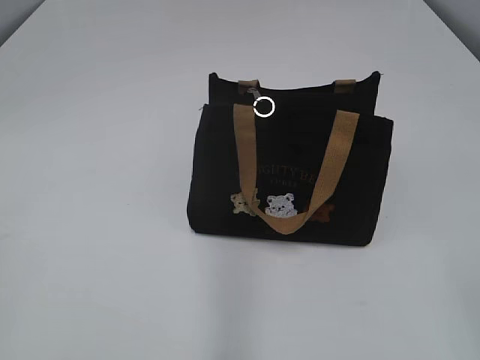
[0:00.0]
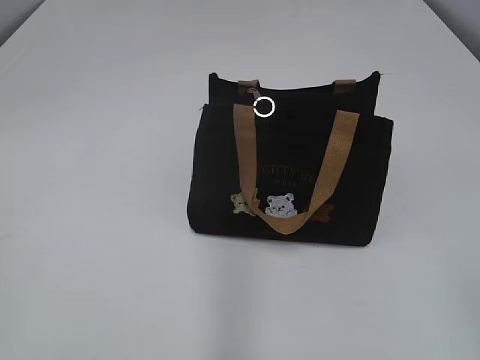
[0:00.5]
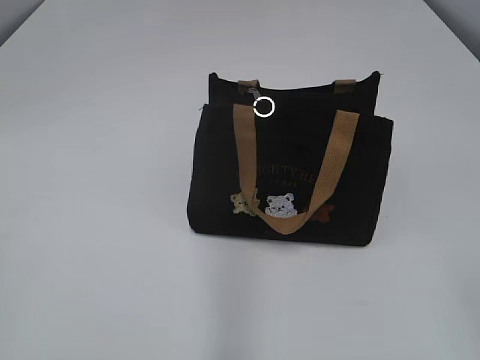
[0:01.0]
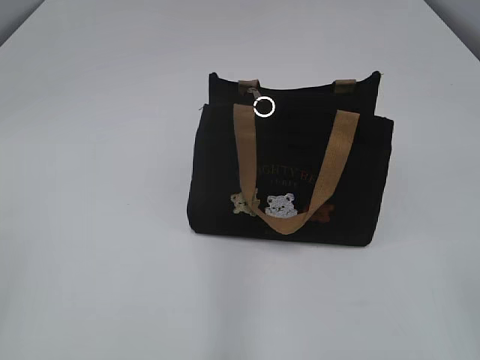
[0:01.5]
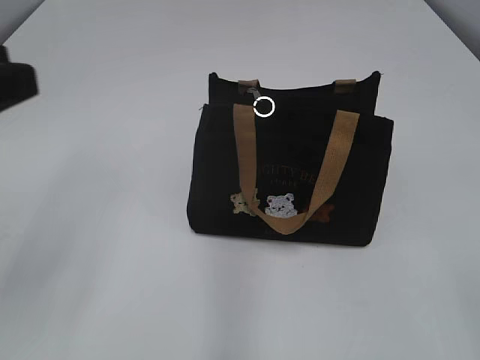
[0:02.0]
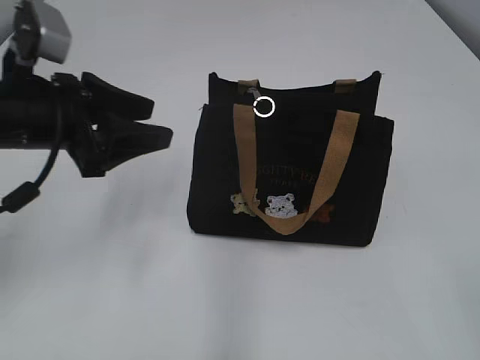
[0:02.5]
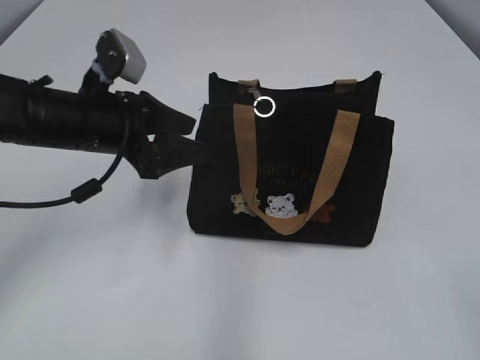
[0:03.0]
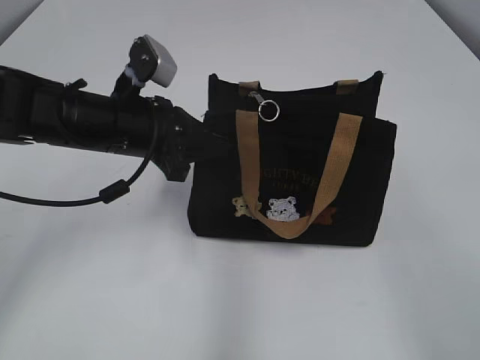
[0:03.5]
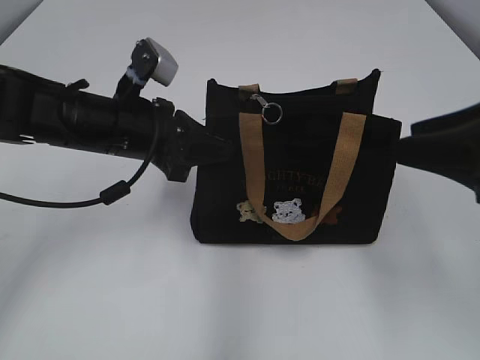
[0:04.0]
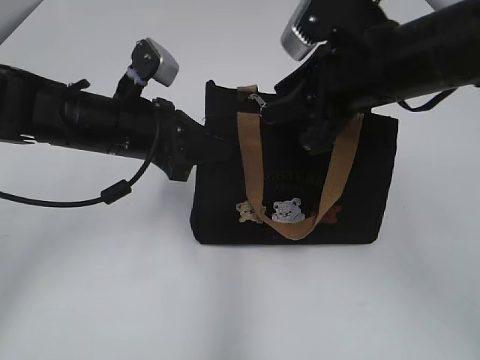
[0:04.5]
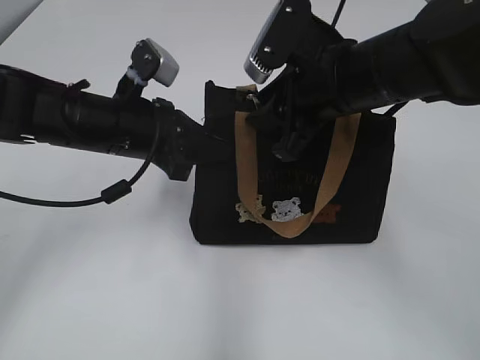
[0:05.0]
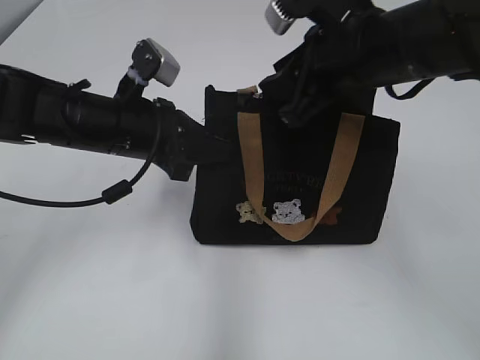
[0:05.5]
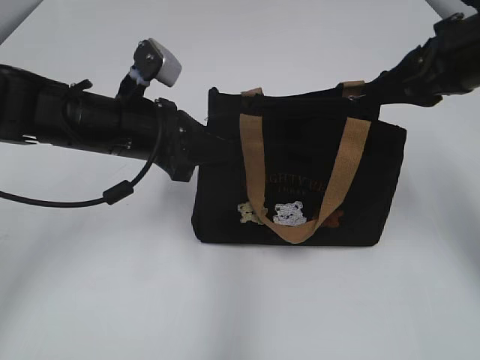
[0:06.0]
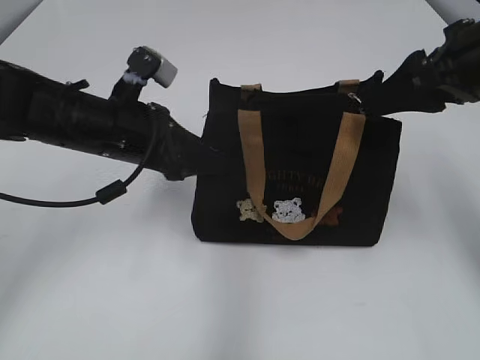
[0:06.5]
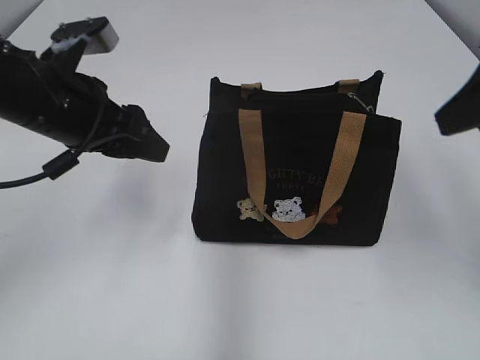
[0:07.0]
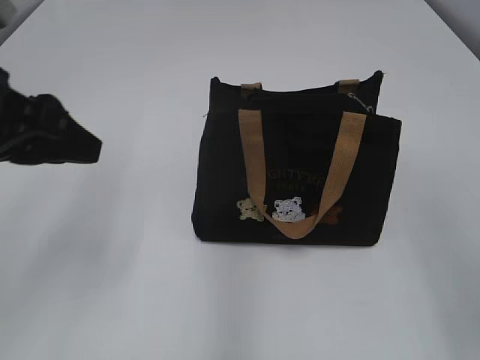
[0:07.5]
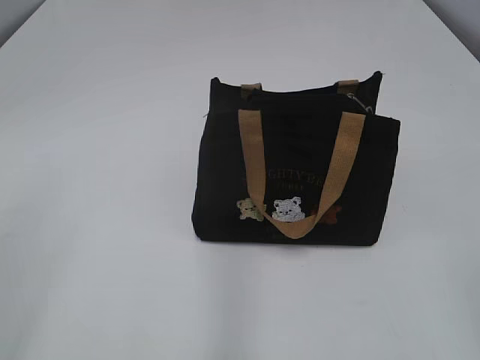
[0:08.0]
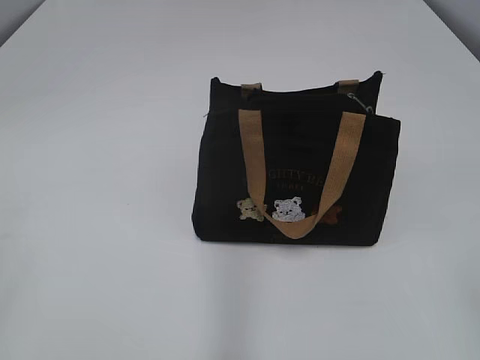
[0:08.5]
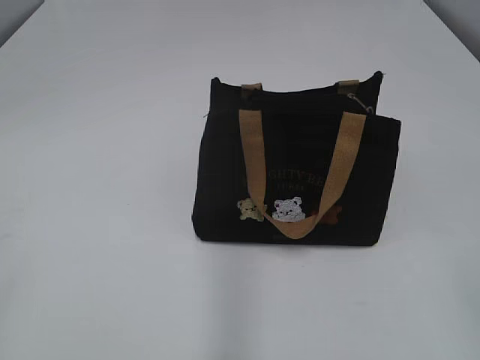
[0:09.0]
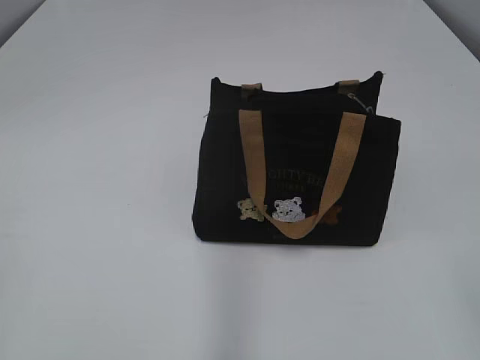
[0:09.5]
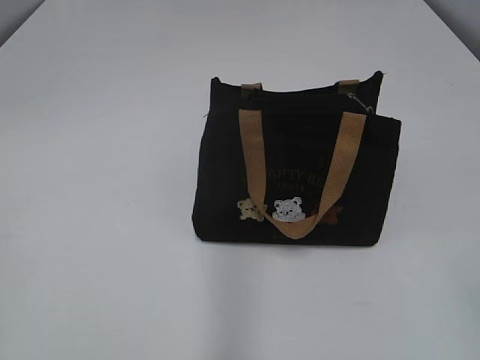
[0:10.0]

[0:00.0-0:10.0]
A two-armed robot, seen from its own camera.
Step, 0:00.0 to 0:06.5: Pull open the zipper with your right hand.
0:02.0 to 0:04.0: The right gripper goes about 20 cm forward; the left gripper moves forward, to the right and downward, roughly 25 cm, and closes up.
0:04.0 to 0:06.0: The right gripper goes roughly 10 cm forward, and reaches some 15 cm to the left, then returns.
0:06.0 to 0:08.0: The right gripper moves backward, some 30 cm, and opens and closes again, while the left gripper goes approximately 30 cm backward, to the left and upward, and opens.

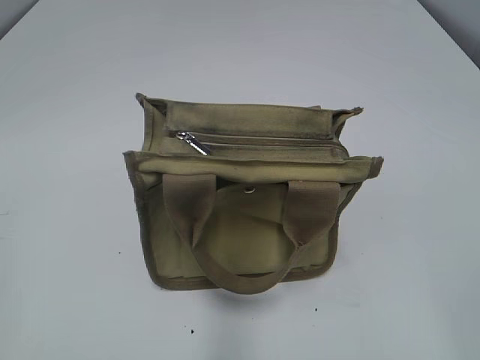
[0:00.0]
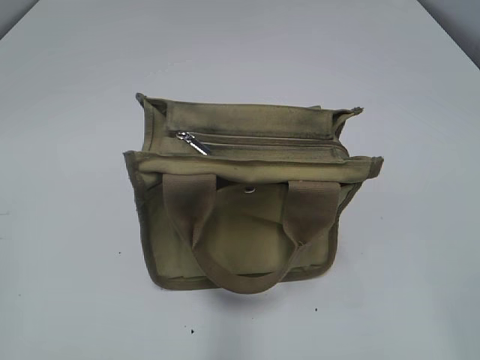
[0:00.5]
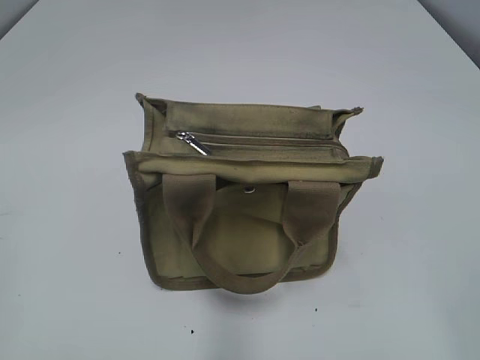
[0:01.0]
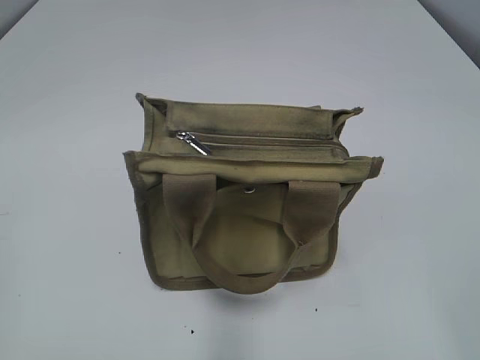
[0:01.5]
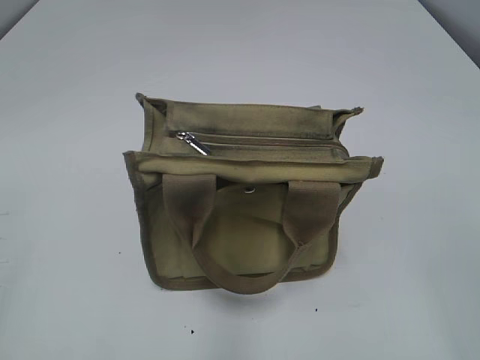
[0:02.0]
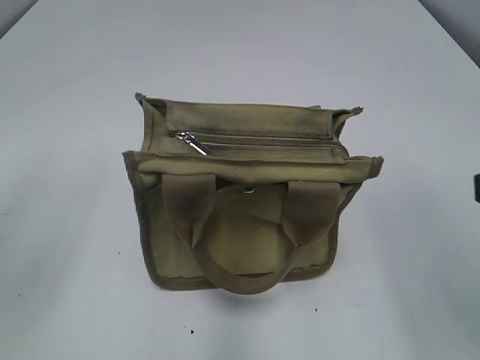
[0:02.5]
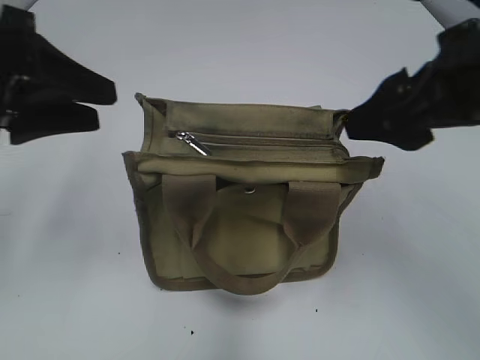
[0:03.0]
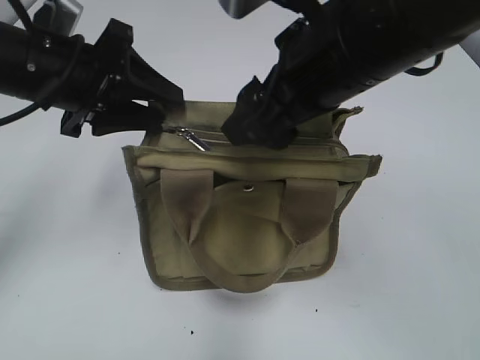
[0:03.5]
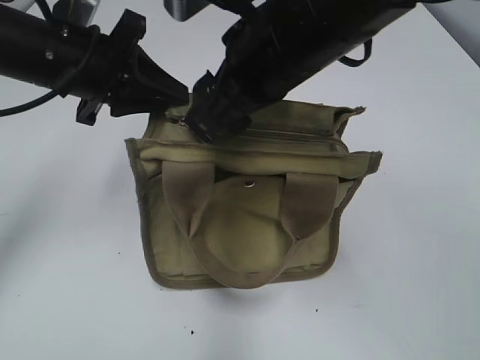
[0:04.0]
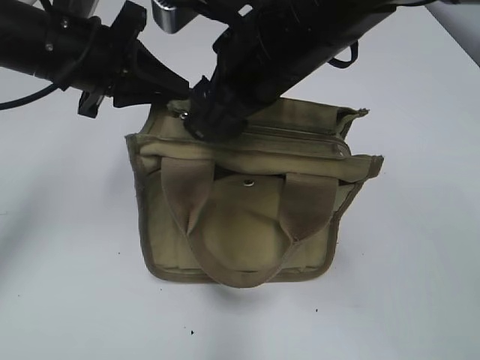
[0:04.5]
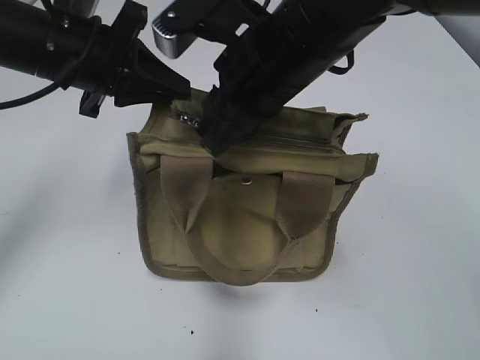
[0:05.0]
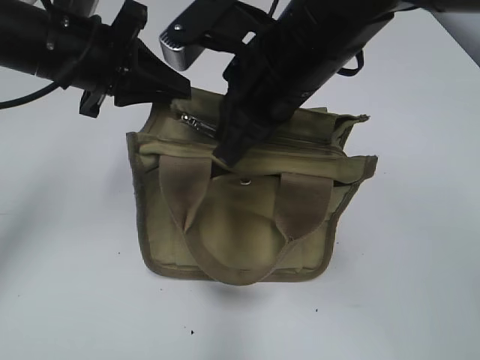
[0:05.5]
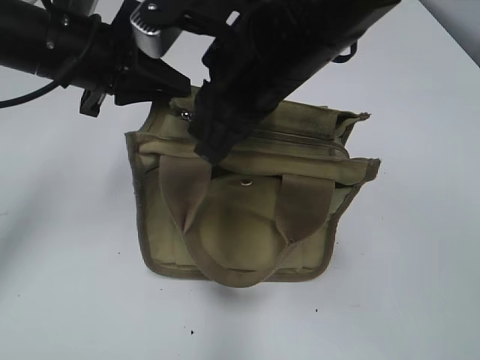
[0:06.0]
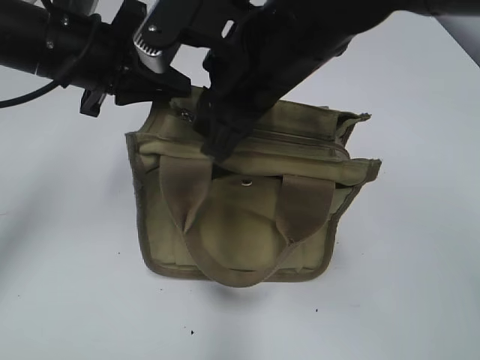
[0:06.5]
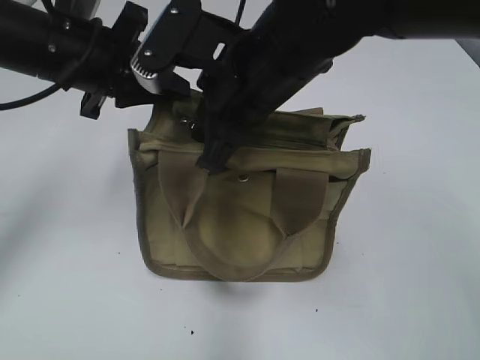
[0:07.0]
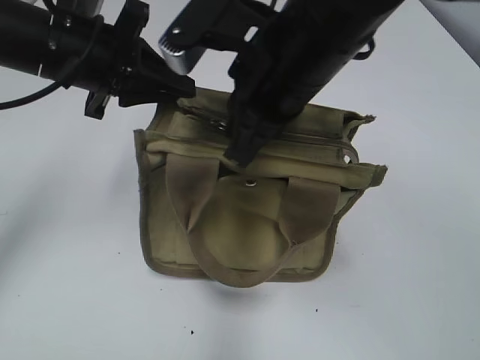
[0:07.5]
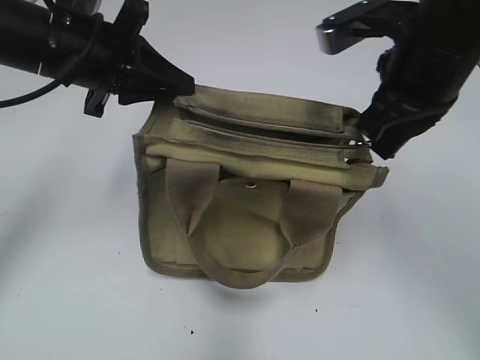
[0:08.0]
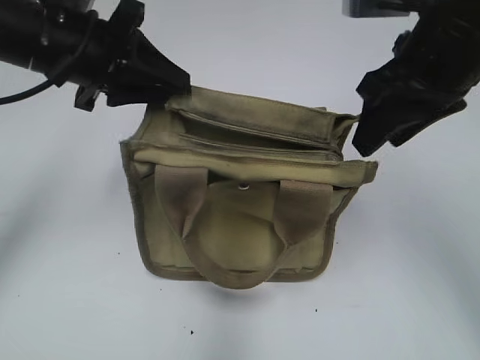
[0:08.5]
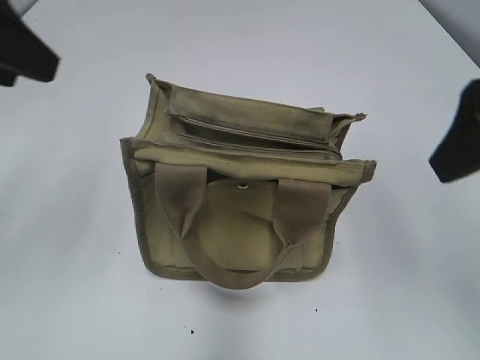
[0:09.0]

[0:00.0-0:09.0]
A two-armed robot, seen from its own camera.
Step, 0:00.0 to 0:08.0: Pull open the zipper with your right hand.
0:02.0 to 0:04.5: The right gripper heads forward and to the left, covering about 35 cm, while the left gripper heads forward and to the right, covering approximately 35 cm, and closes up.
0:04.5 to 0:07.0: The right gripper closes up.
0:07.0 to 0:09.0: The left gripper goes about 15 cm upward, backward and to the left, and opens up. The right gripper heads to the right, upward and backward, covering approximately 20 cm, and opens up.

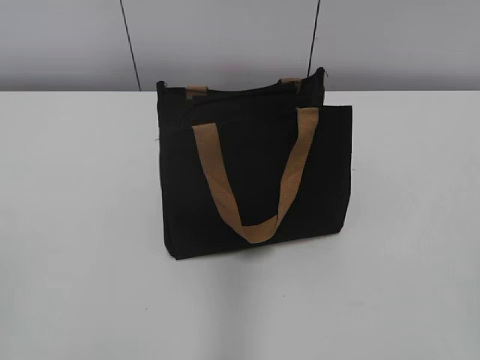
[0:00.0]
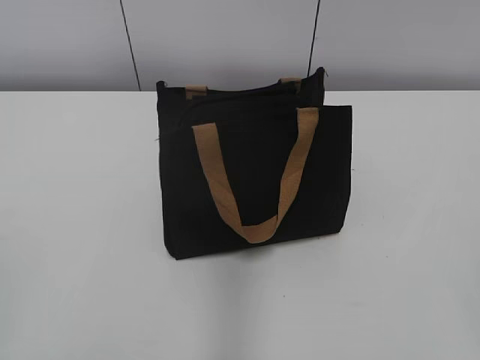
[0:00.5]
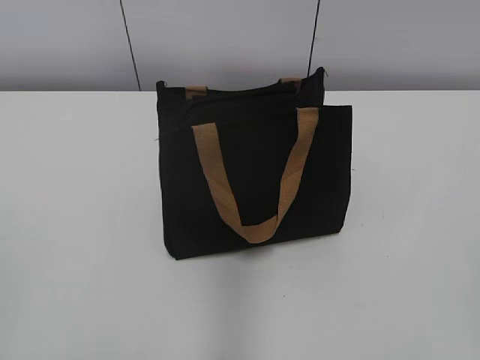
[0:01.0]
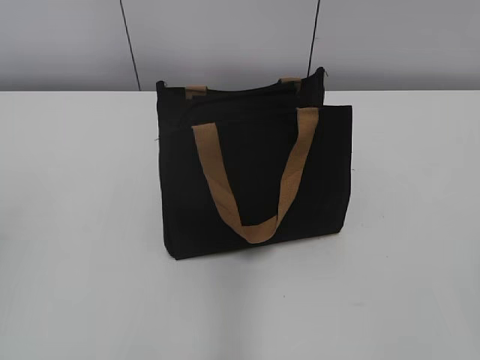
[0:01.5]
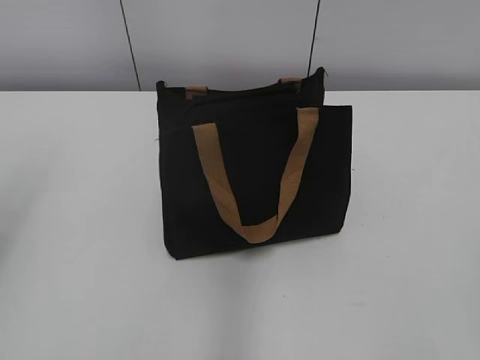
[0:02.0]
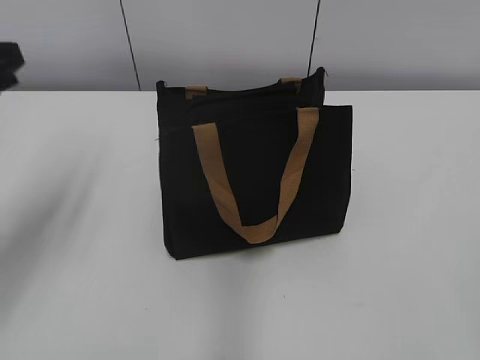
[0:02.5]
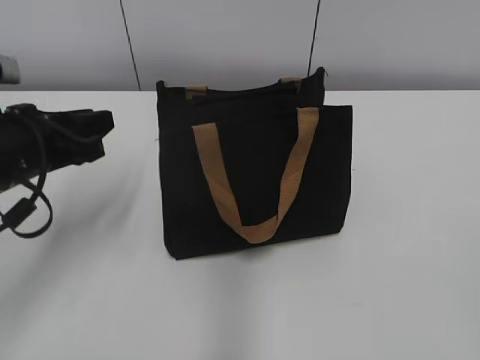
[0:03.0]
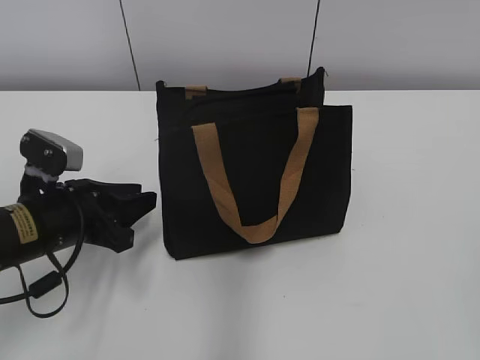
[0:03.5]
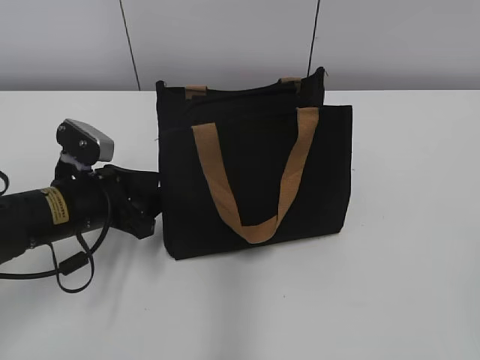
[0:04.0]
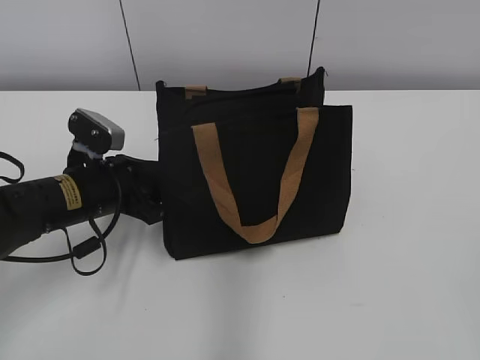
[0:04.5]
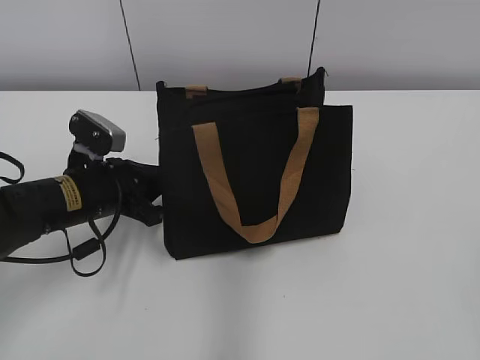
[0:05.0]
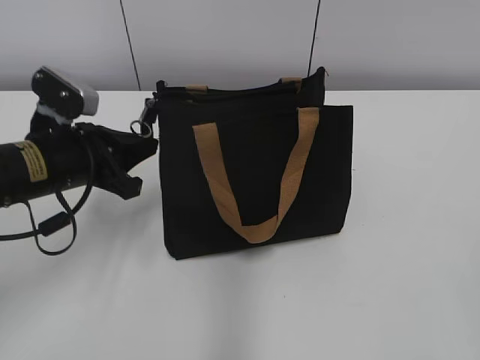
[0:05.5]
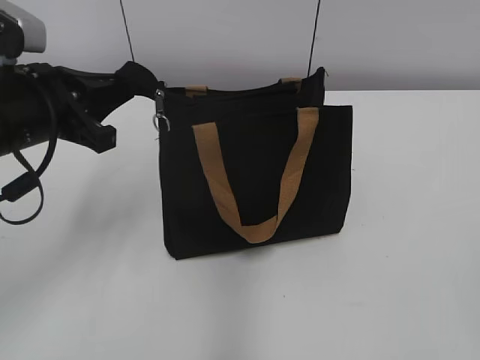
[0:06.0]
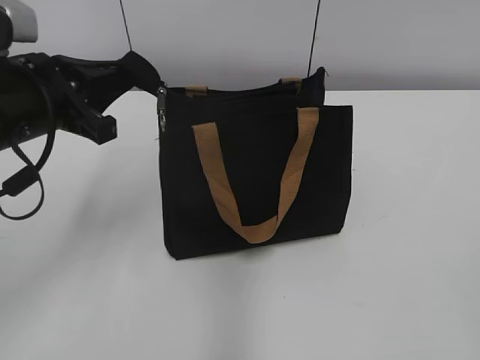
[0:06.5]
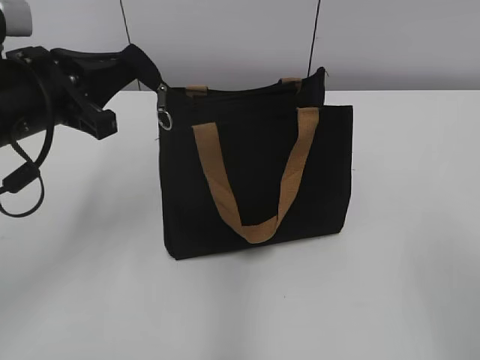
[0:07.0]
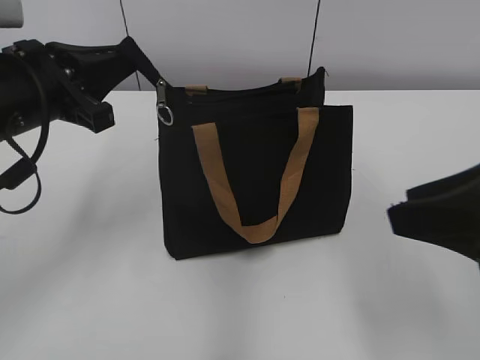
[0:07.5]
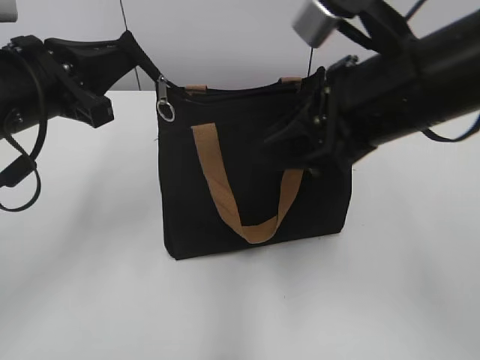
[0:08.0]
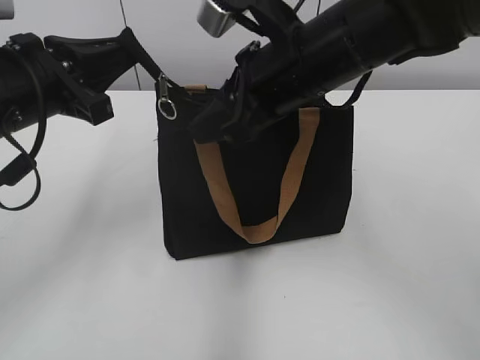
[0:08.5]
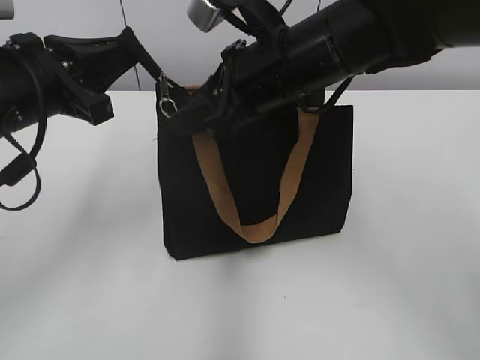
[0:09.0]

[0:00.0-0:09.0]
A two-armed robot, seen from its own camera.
0:02.0 to 0:04.5: The left gripper shifts some 35 cm downward, forward and to the right.
0:04.5 to 0:07.0: The left gripper moves upward, some 15 cm, and closes its fingers. The right gripper shifts approximately 5 cm forward.
0:07.0 to 0:09.0: The right gripper goes roughly 35 cm forward and to the left.
